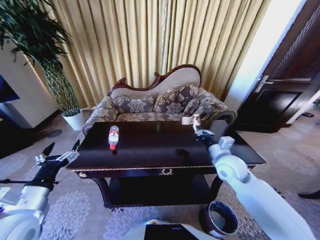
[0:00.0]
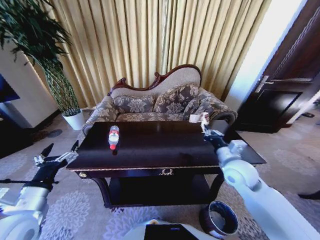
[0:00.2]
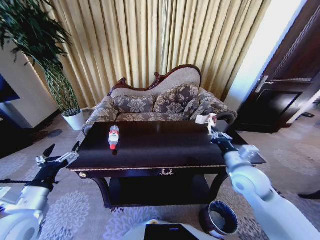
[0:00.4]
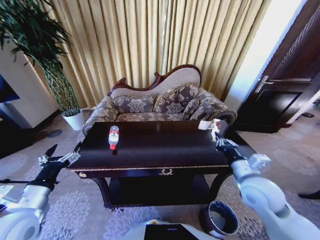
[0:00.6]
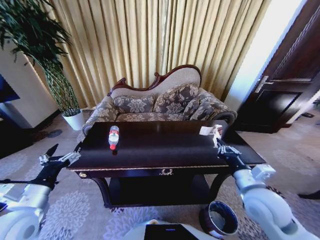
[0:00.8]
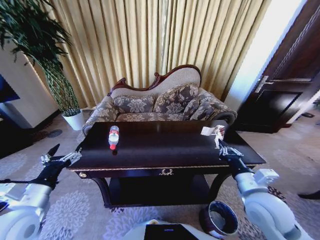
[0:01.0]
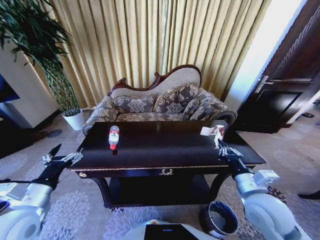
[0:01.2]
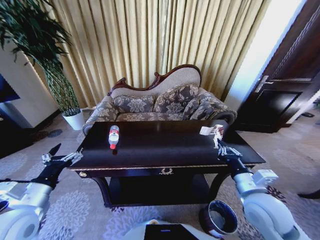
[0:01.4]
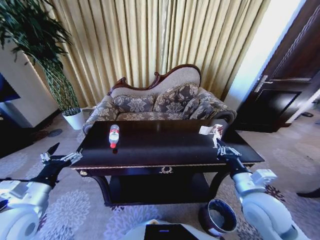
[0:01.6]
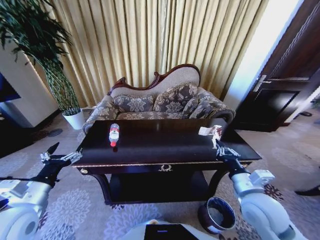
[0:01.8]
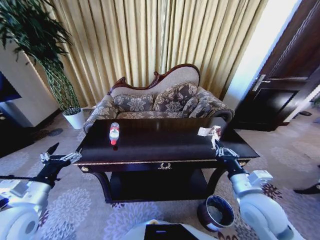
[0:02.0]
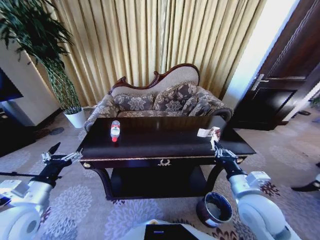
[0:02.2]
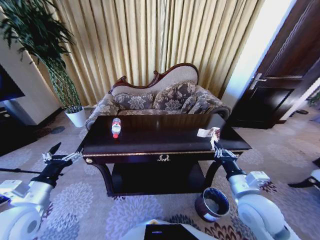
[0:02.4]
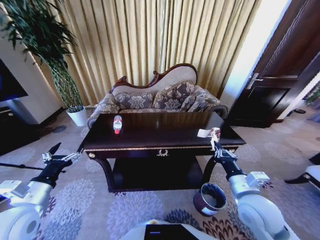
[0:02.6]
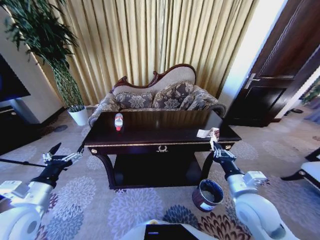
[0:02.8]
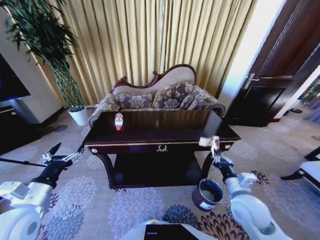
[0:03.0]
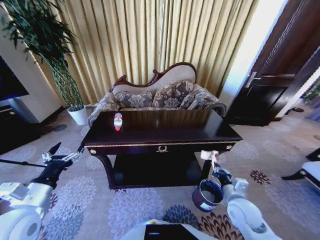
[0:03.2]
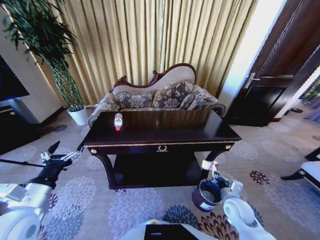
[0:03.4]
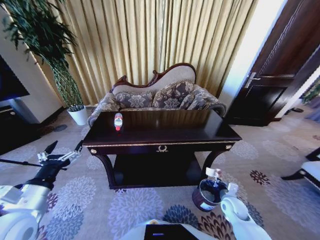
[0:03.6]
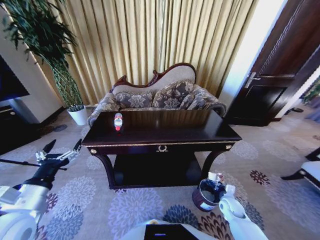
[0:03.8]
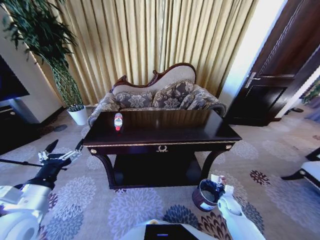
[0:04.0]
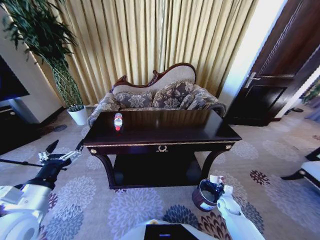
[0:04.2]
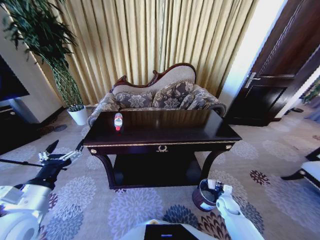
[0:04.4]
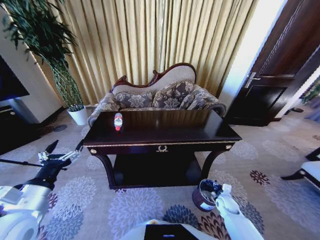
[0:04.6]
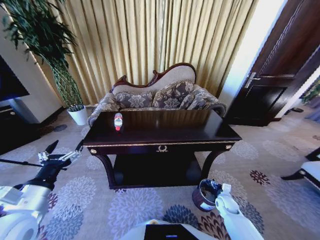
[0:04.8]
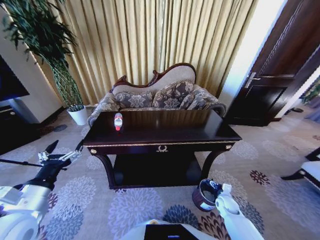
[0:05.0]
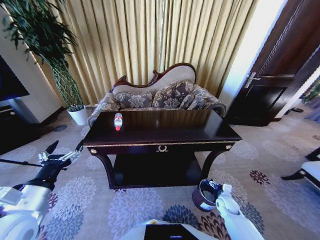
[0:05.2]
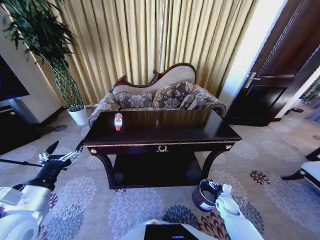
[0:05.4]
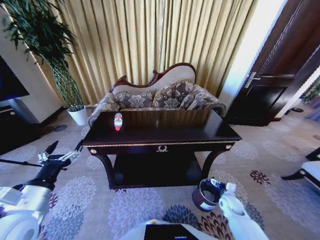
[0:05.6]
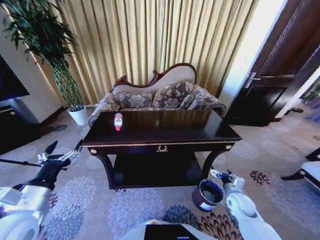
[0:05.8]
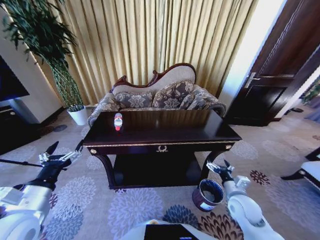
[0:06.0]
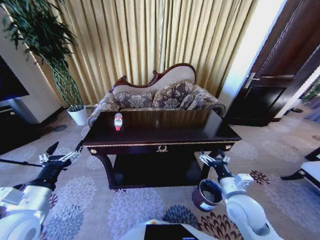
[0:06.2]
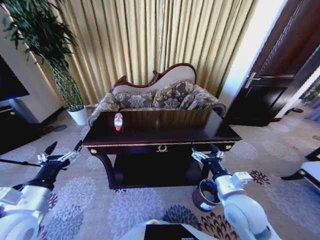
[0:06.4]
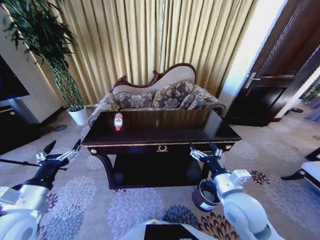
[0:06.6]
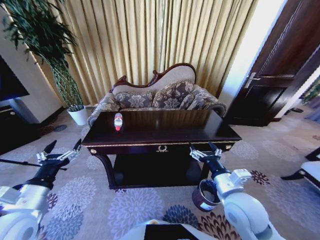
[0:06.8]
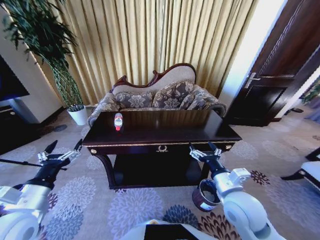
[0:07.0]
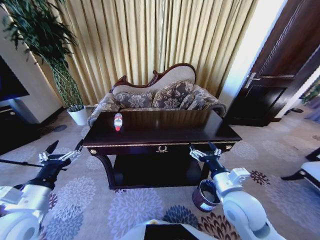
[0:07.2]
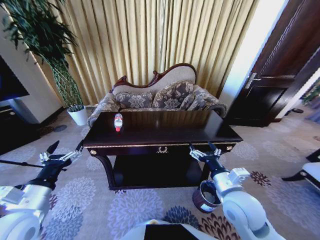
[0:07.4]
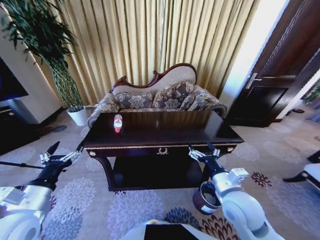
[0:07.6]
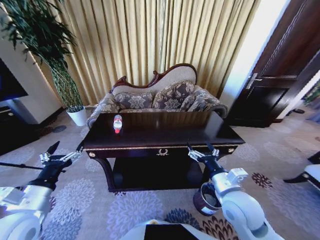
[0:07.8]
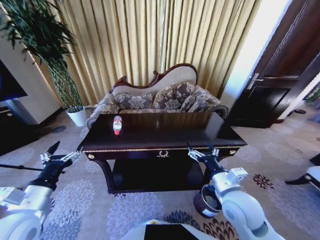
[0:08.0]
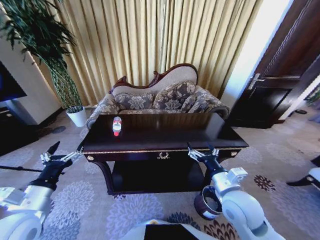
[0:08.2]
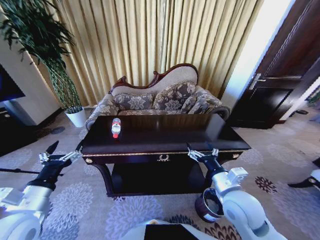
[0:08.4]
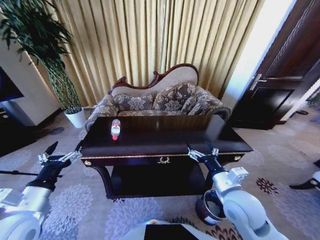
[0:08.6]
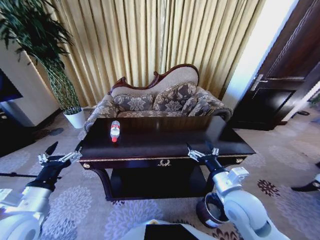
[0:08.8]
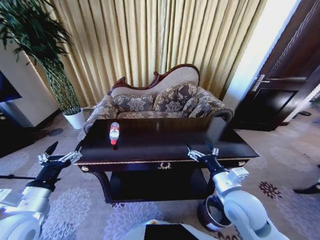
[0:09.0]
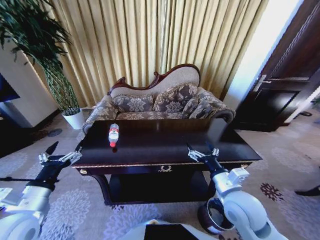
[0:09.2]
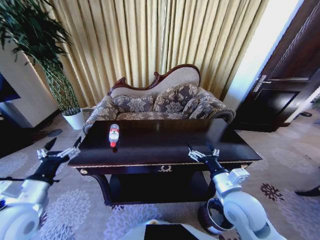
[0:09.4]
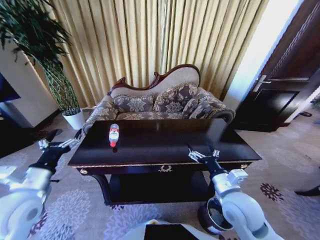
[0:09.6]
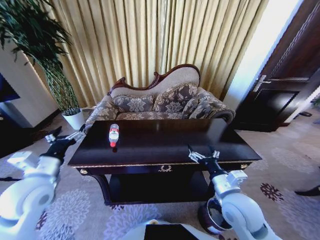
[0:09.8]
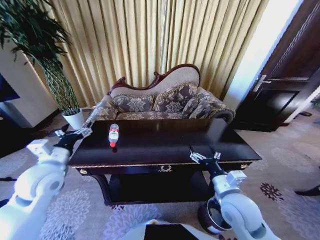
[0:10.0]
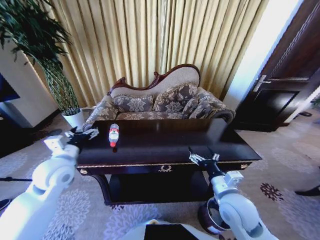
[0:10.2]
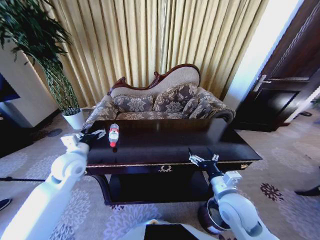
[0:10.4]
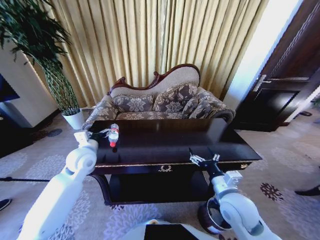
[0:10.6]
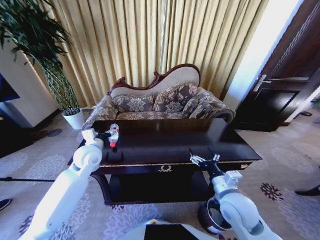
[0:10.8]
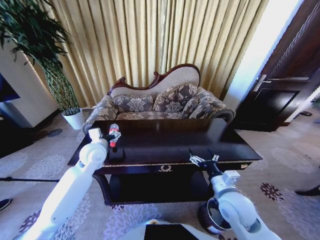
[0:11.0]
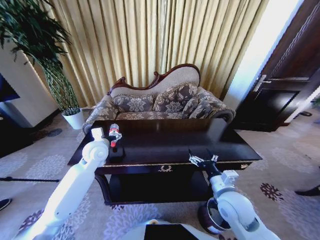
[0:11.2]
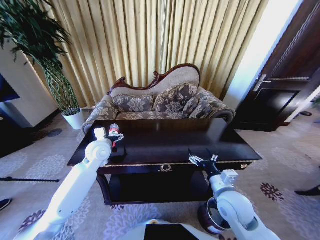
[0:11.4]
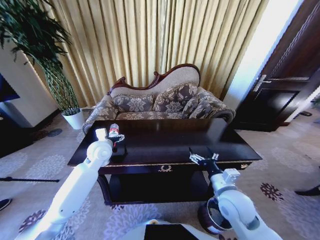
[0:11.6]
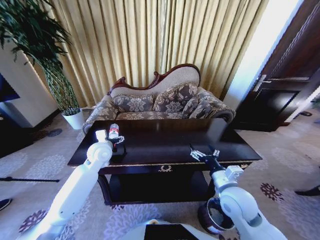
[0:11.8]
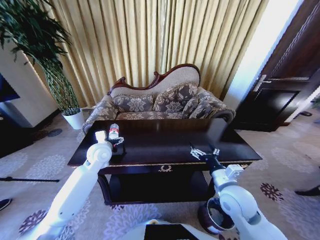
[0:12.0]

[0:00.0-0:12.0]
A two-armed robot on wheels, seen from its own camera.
Task of the whole recording: Move to the front of the table and place the trash on the table into the trash bin.
0:00.0 to 0:01.6: The right gripper shifts about 15 cm backward.
0:01.6 to 0:03.0: The right gripper goes some 5 cm downward.
0:03.0 to 0:04.4: The right gripper travels downward by roughly 25 cm.
0:04.4 to 0:06.0: The right gripper heads upward, covering some 20 cm, and opens up.
0:06.0 to 0:07.6: The right gripper heads upward and to the left, covering some 15 cm.
0:09.0 to 0:10.4: The left gripper is displaced forward by some 20 cm.
0:10.4 to 0:12.0: The left gripper is displaced to the right and forward by about 10 cm.

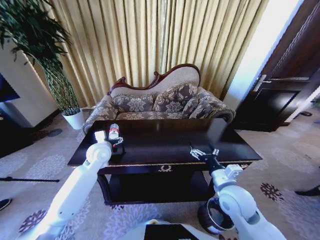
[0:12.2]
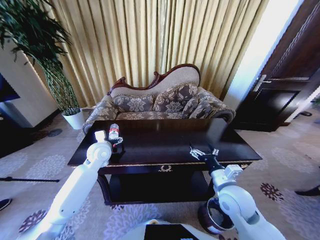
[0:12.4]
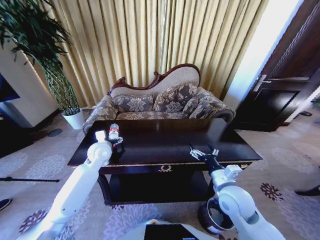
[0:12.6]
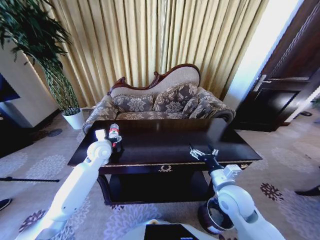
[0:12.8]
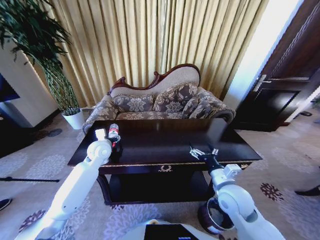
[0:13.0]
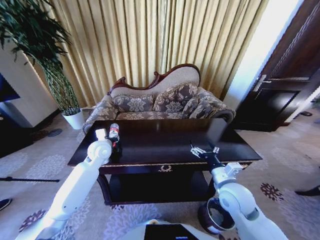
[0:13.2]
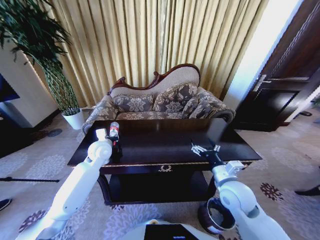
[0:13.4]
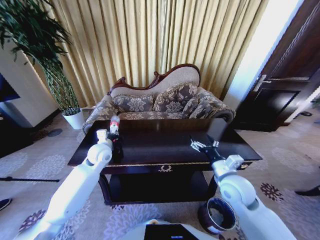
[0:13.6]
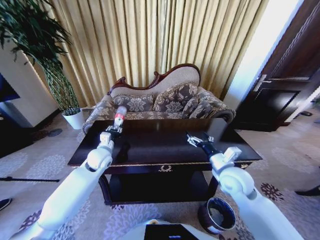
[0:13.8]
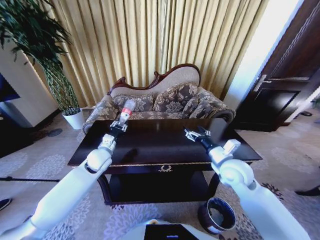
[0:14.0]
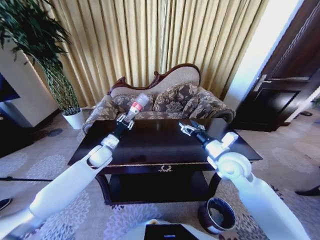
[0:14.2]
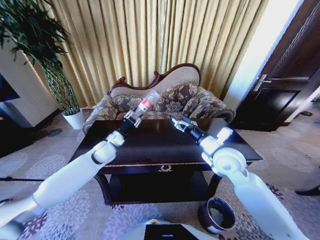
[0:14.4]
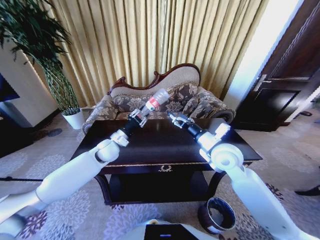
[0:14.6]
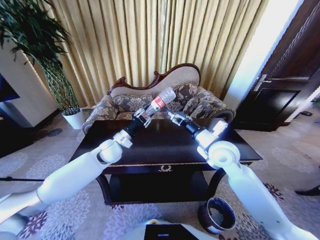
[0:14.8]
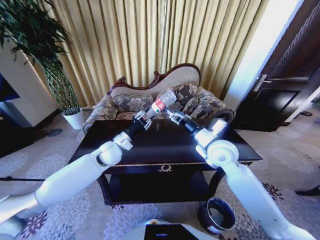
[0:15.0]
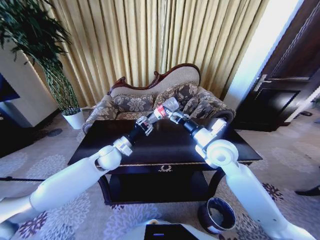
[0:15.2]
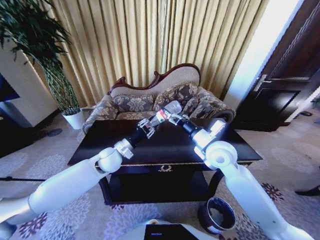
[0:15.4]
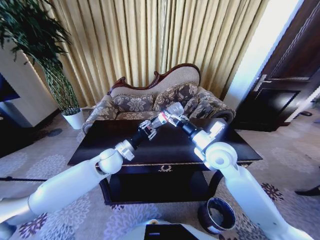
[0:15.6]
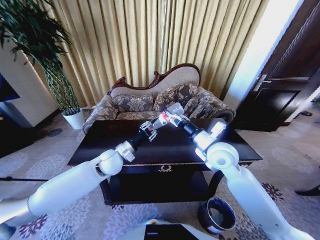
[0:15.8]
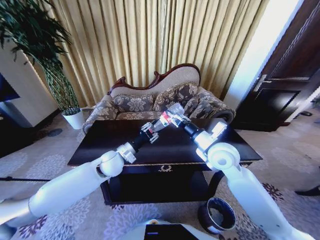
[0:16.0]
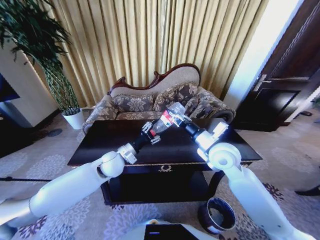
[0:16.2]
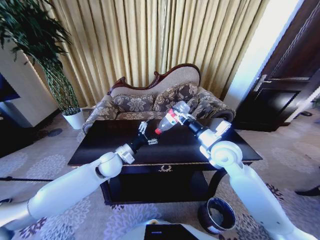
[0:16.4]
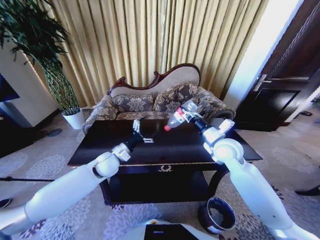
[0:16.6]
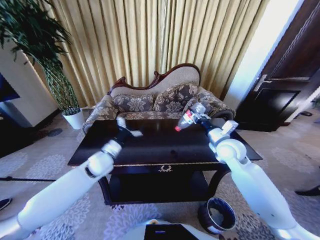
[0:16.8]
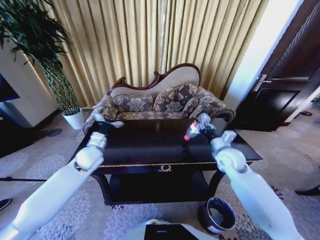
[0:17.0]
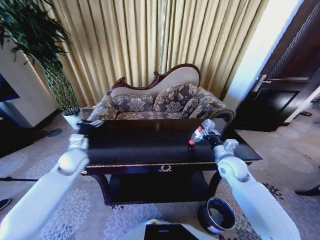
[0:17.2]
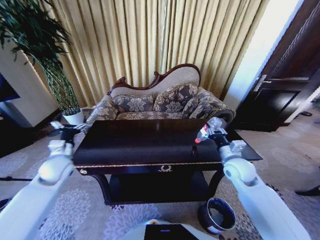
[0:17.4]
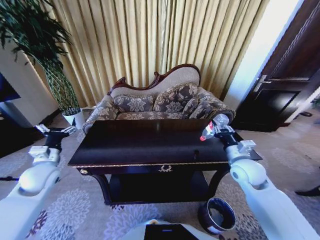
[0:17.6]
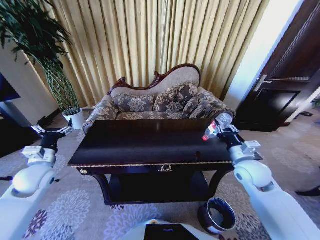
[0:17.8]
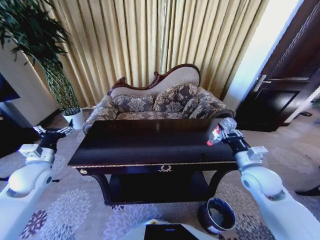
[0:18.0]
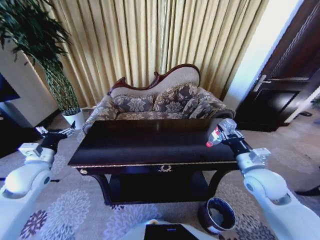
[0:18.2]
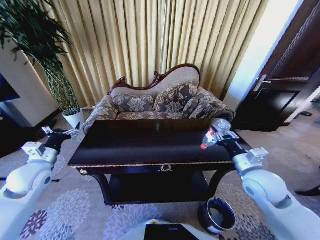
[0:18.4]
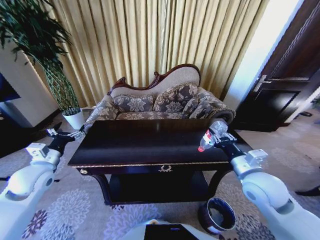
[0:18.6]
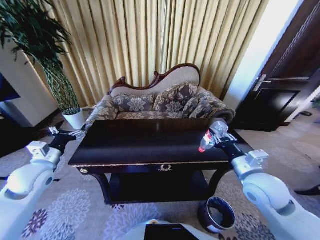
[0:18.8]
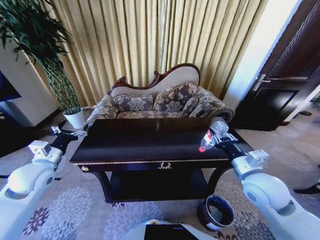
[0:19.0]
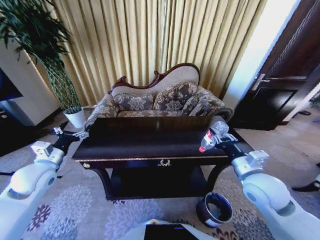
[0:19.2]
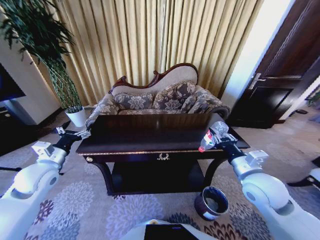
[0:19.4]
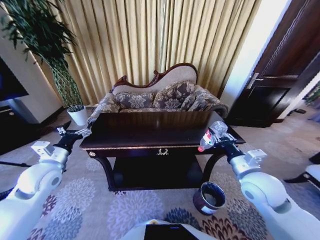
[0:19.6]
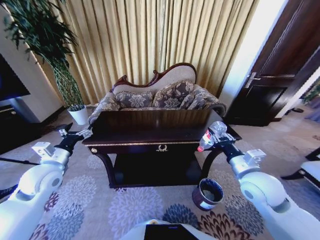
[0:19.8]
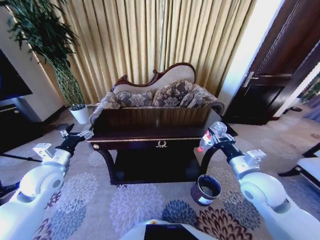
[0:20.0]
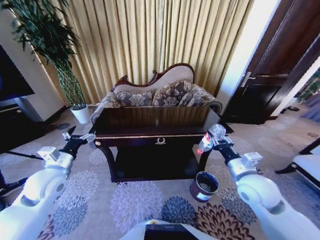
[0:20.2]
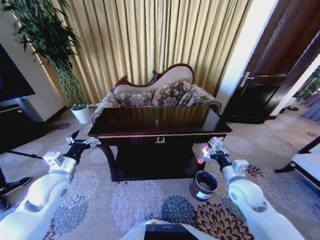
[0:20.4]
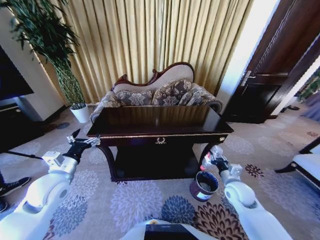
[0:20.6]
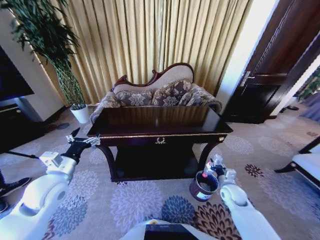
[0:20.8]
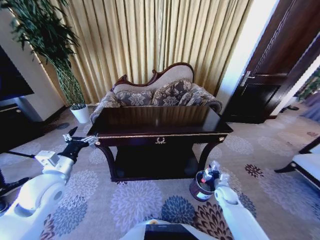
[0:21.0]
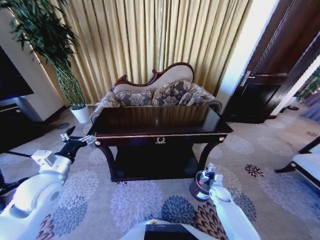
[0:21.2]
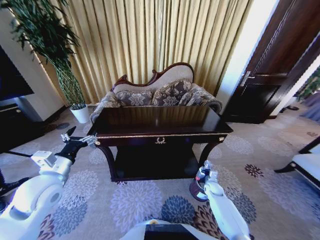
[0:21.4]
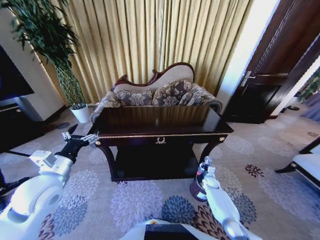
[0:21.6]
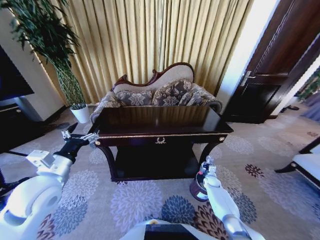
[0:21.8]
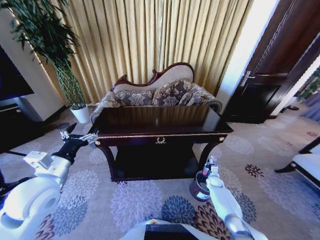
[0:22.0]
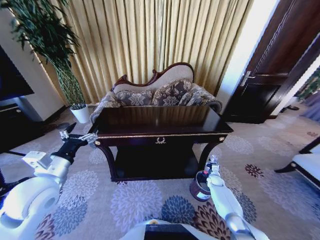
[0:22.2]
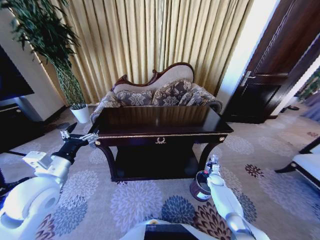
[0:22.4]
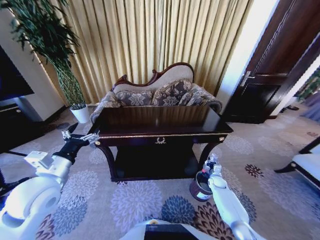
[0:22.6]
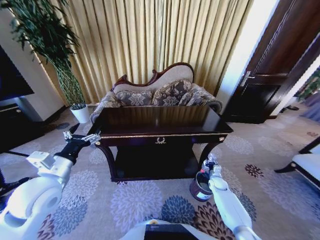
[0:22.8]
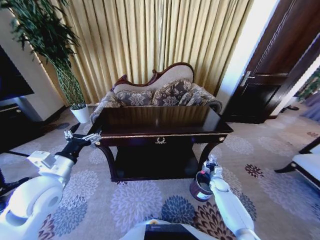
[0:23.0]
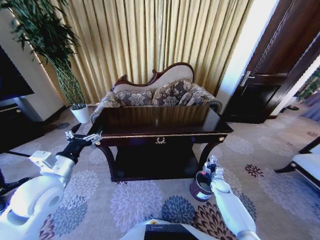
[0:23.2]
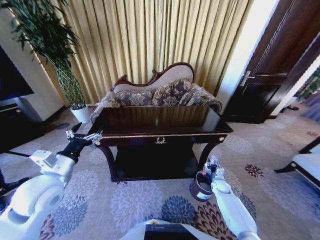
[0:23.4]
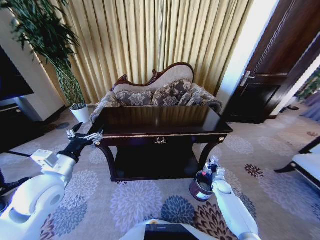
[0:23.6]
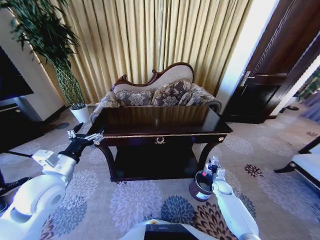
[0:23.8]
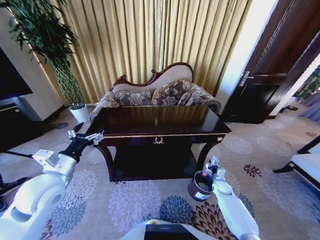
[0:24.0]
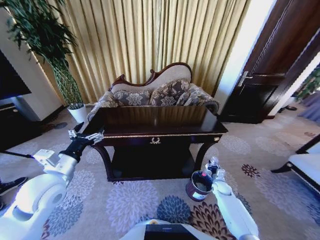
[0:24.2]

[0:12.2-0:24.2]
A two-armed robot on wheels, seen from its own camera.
Task of the whole recording: Move to the front of the table and place the trash on the table into the trash bin.
0:12.2 to 0:13.8: The left gripper closes; the right gripper shifts approximately 5 cm forward.
0:13.8 to 0:15.2: The right gripper heads upward and forward, covering approximately 10 cm; the left gripper changes place by approximately 5 cm.
0:15.2 to 0:16.6: The right gripper ends up approximately 5 cm from where it was, and closes its fingers. Meanwhile the left gripper opens its fingers.
0:16.6 to 0:18.2: The right gripper moves backward and to the right, some 15 cm. The left gripper goes about 20 cm to the left.
0:18.2 to 0:19.8: The left gripper moves to the right, approximately 5 cm.
0:19.8 to 0:21.2: The right gripper goes roughly 35 cm downward.
0:21.2 to 0:22.6: The right gripper goes about 5 cm forward.
